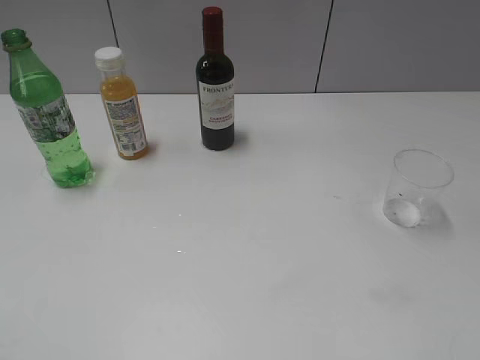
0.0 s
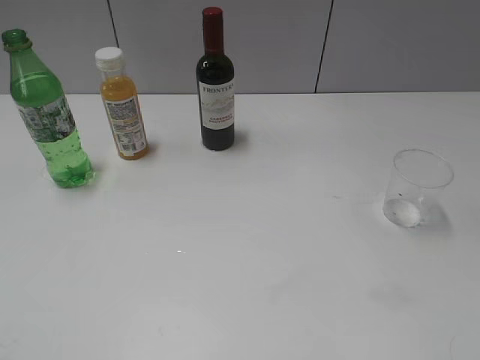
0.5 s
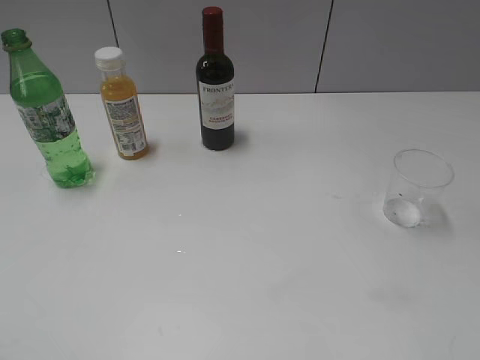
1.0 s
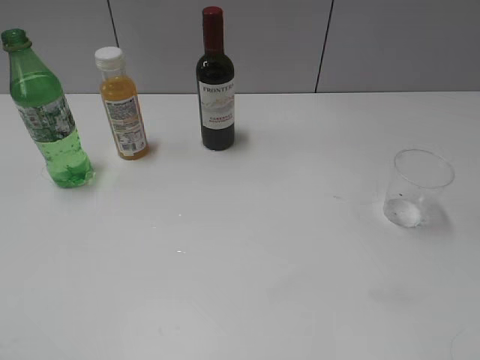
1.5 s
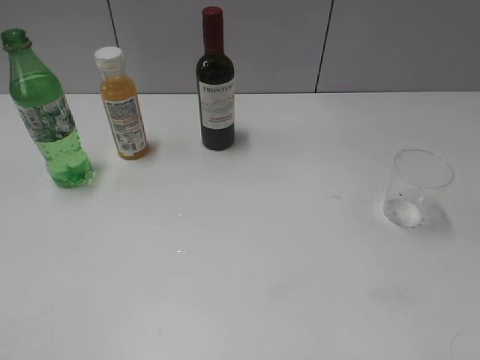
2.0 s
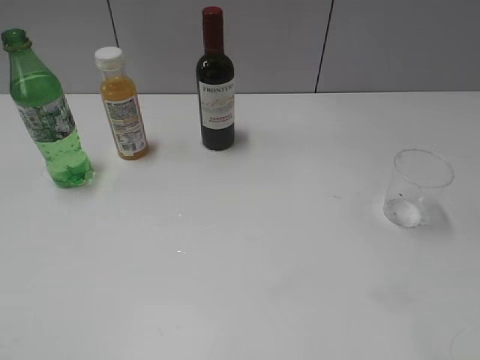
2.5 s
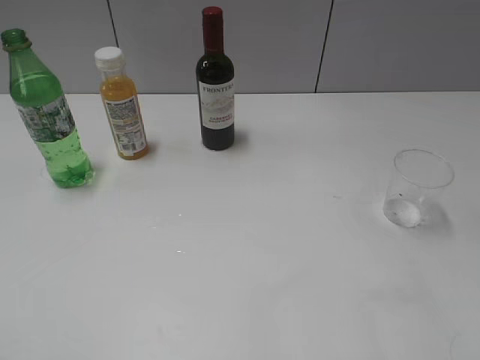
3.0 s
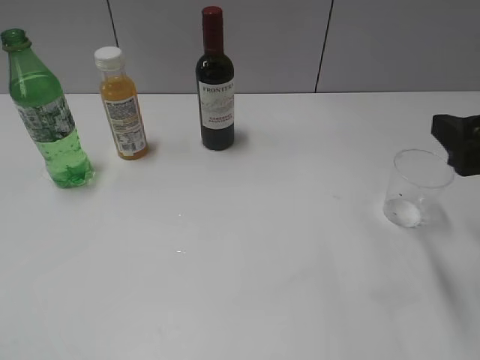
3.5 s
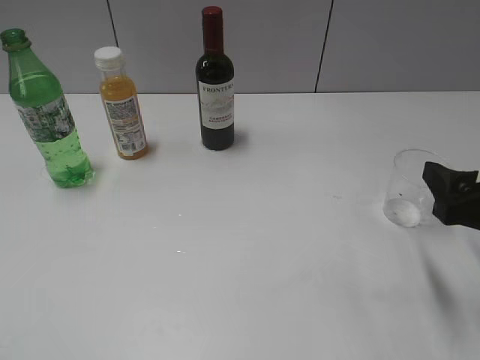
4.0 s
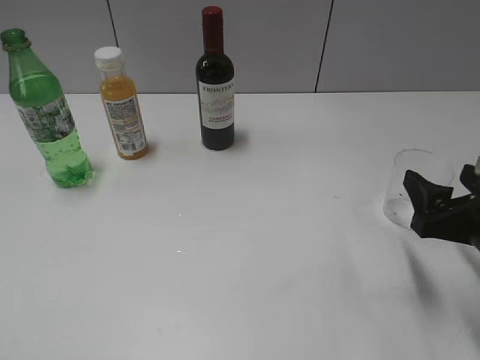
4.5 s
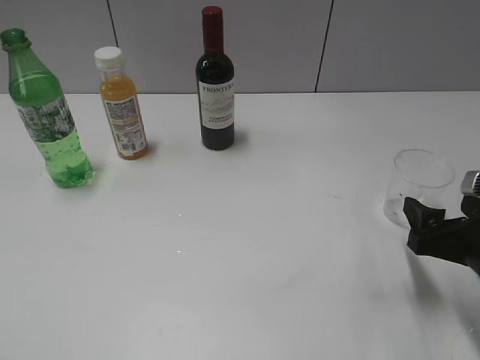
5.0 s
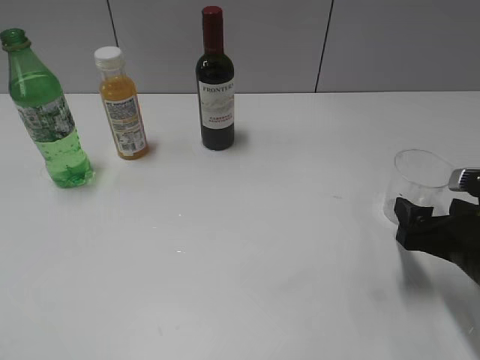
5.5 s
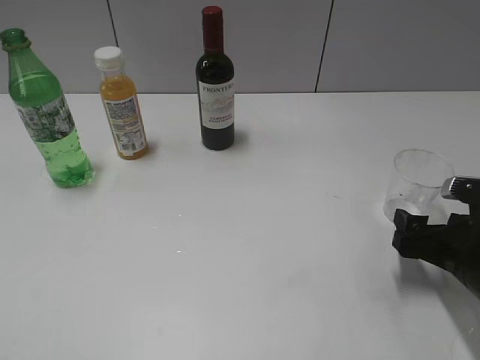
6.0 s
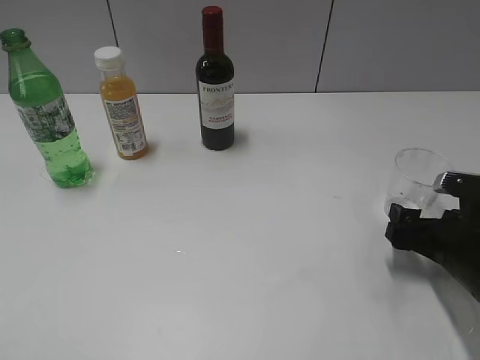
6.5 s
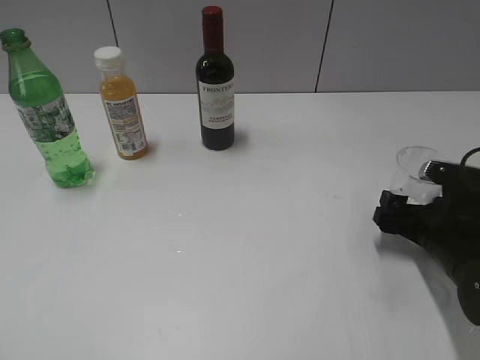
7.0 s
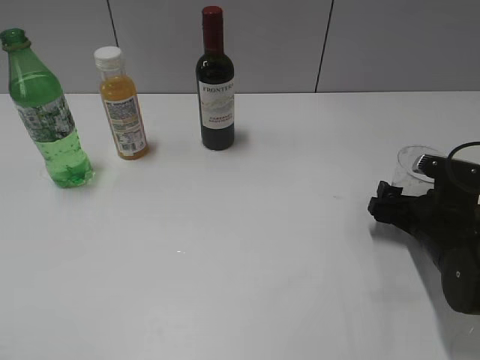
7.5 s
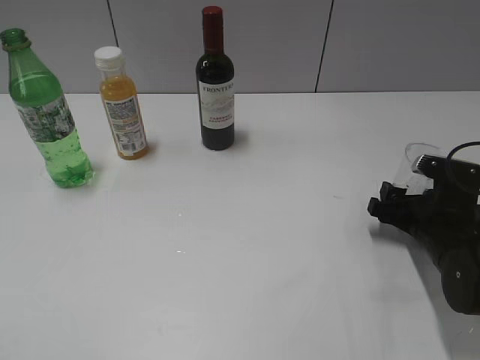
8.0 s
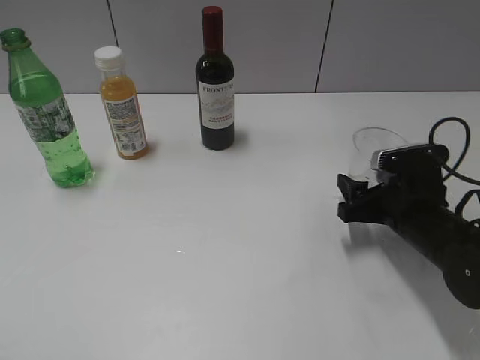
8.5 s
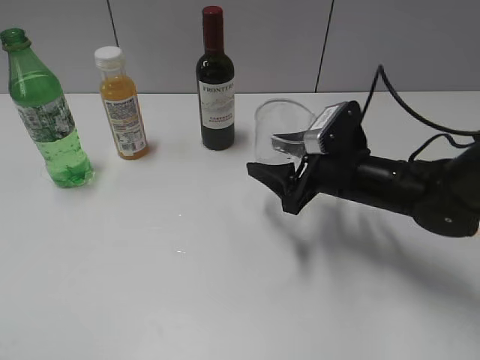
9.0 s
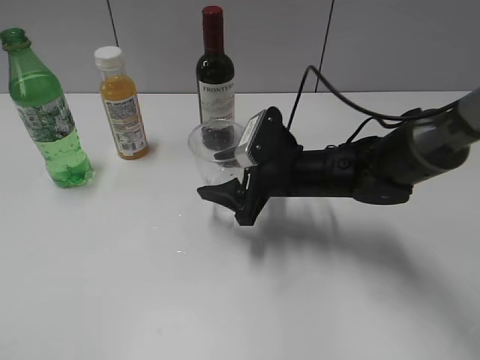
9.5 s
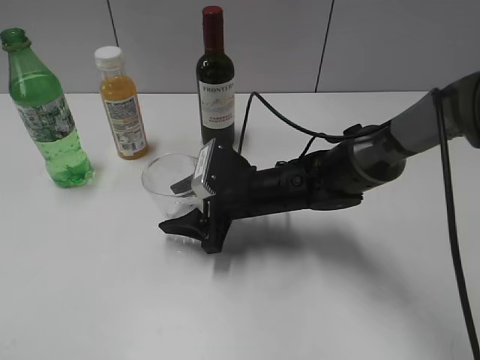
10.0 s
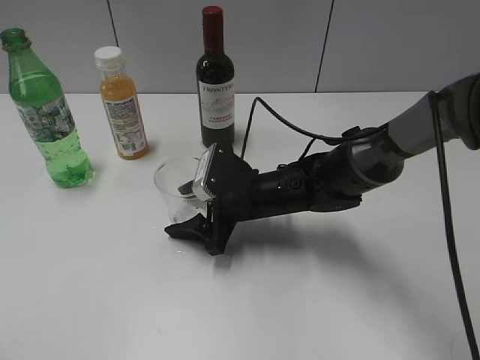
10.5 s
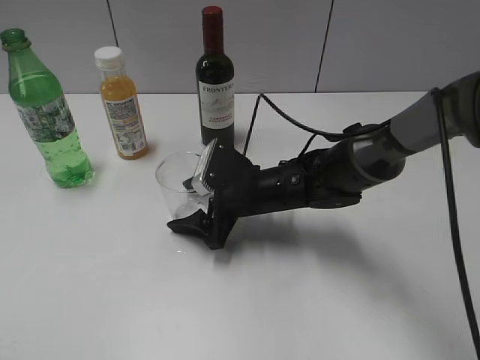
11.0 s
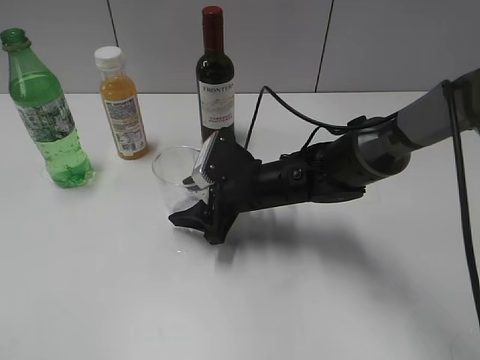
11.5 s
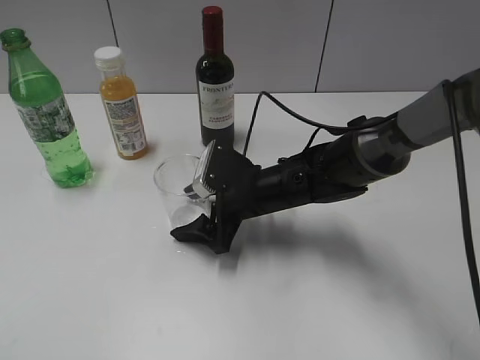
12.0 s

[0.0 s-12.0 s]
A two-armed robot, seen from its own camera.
Step, 2.0 to 8.0 s: Grasp the transparent cup with right gripper.
2.0 to 4.0 s: The right gripper travels forward and downward by some 20 cm.
4.0 to 6.0 s: The right gripper moves downward, some 10 cm.
6.0 to 8.0 s: The right gripper moves forward, approximately 5 cm, and closes its fingers.
8.0 to 10.0 s: The right gripper goes some 20 cm to the left.
10.0 to 12.0 s: The right gripper opens its fingers.

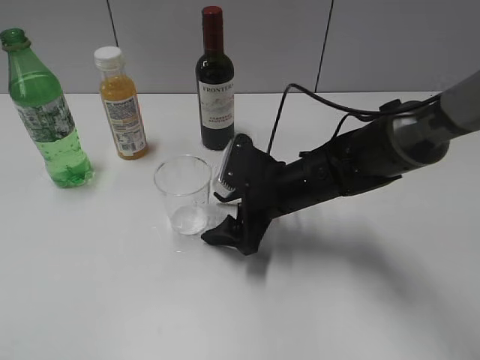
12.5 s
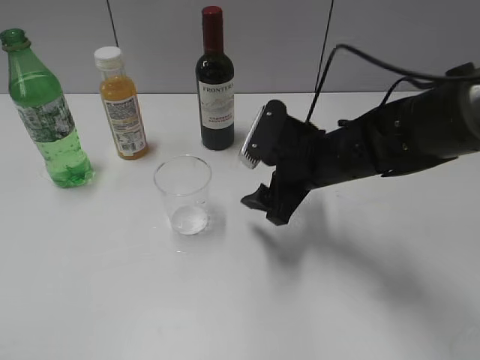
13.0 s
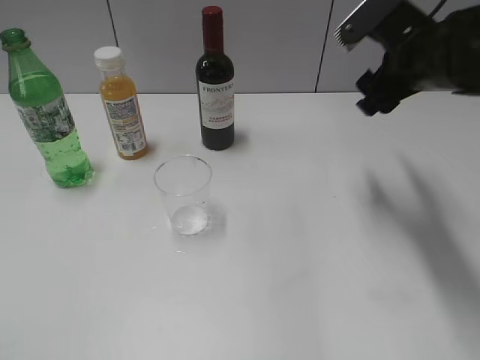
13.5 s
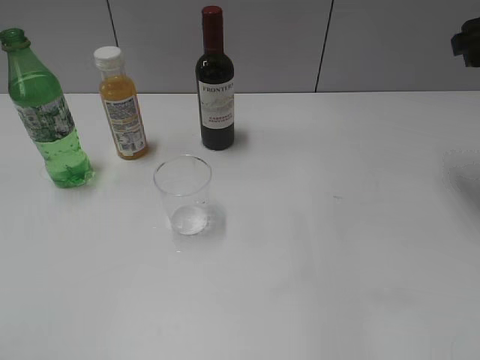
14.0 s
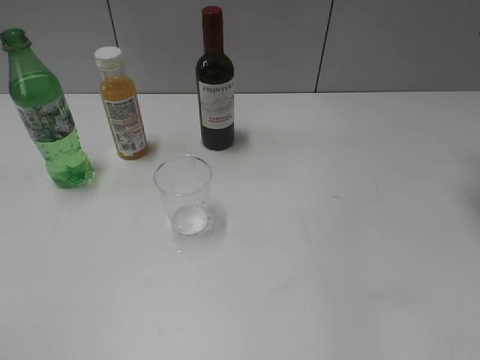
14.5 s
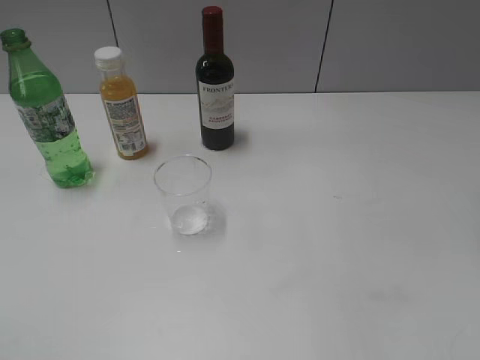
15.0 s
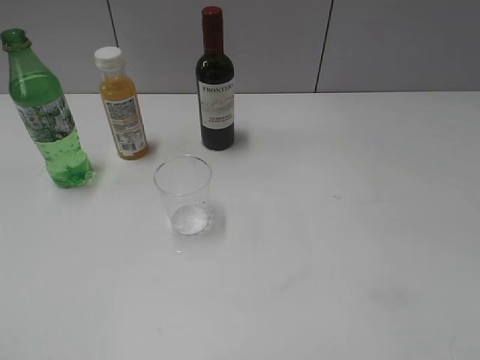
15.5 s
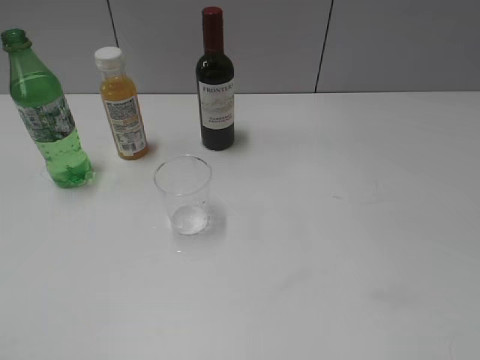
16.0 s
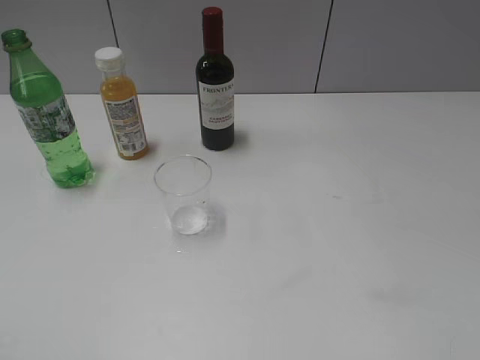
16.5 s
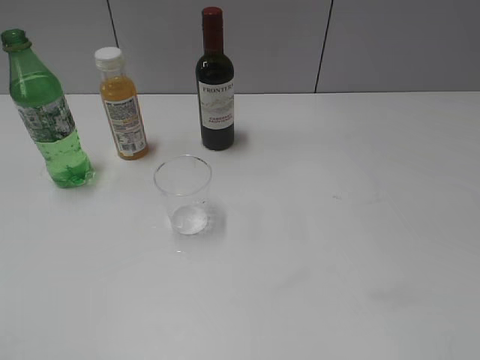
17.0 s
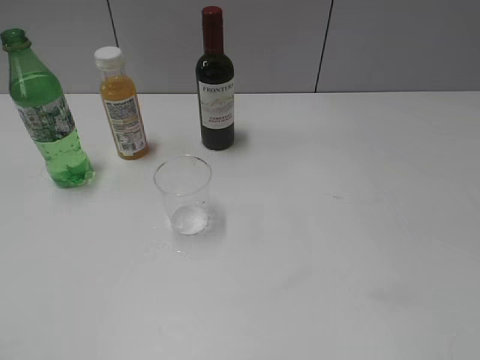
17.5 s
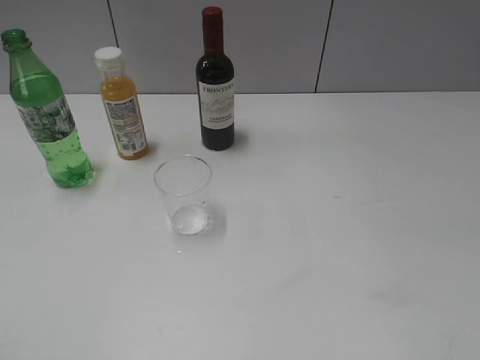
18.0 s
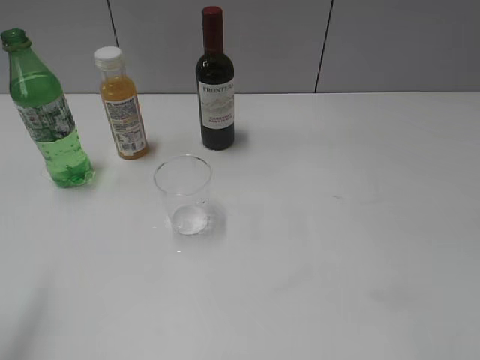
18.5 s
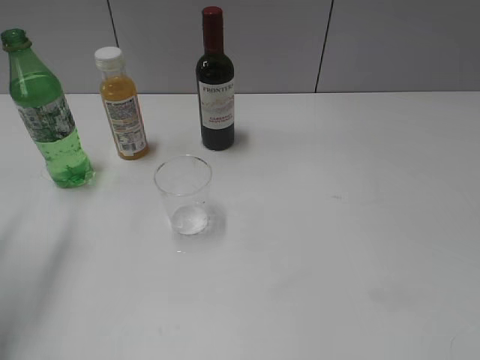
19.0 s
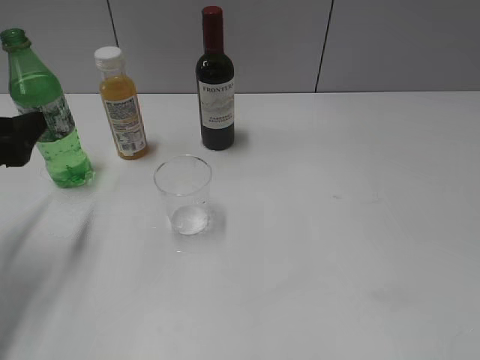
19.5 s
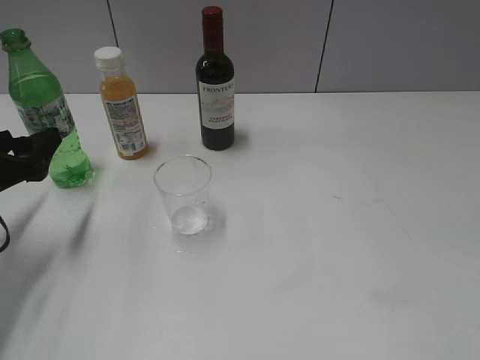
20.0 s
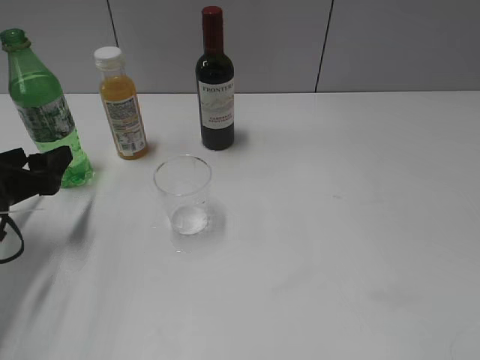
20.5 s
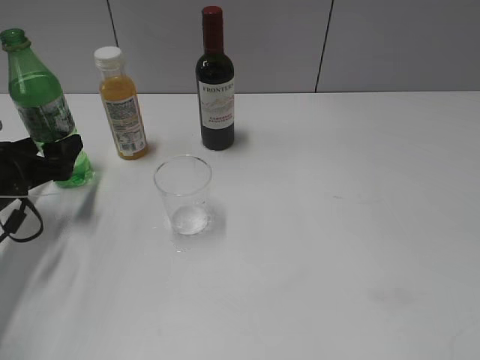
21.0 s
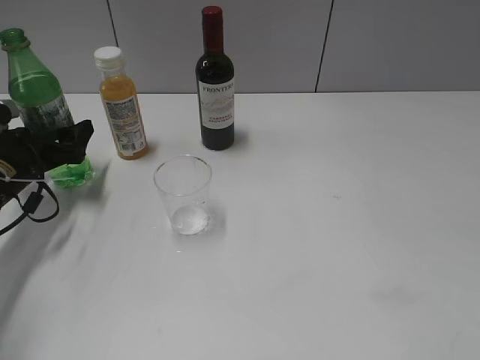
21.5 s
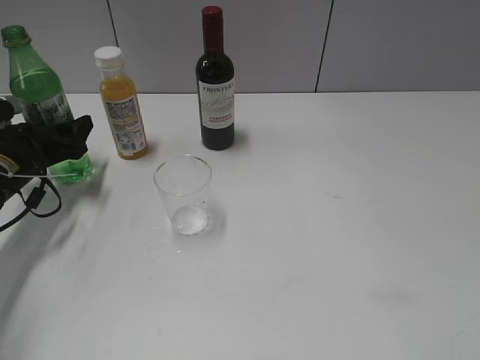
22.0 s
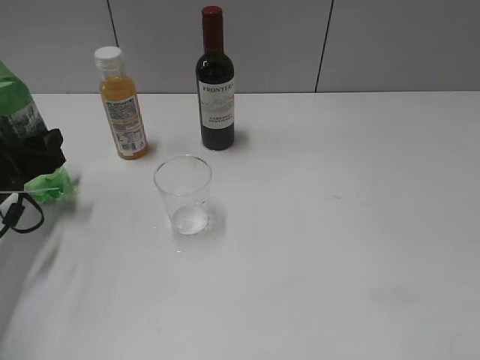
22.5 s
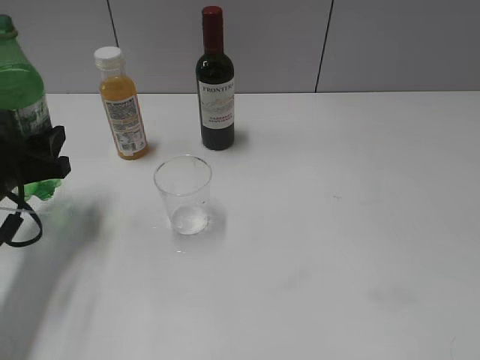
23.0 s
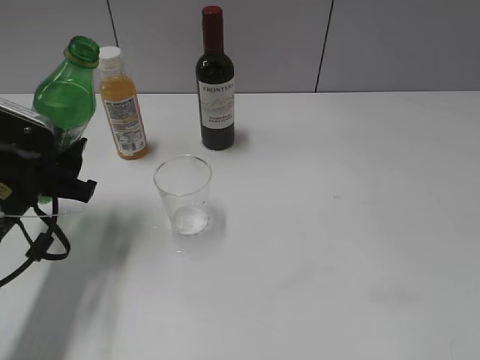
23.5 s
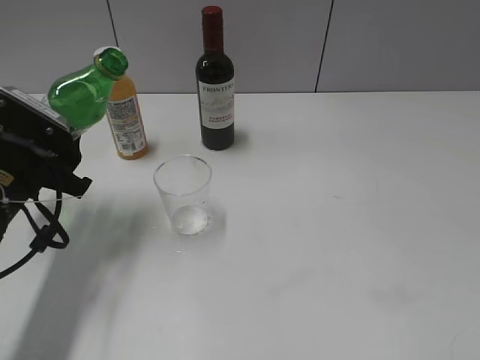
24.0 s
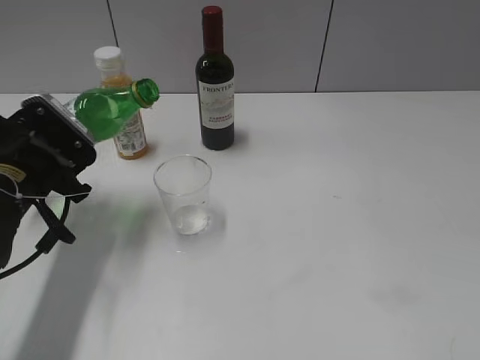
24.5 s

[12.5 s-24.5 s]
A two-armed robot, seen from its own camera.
Step, 13.0 to 22.0 s: Grasp the bottle with sprite with left gripper.
12.5 to 14.5 s: The right gripper shifts approximately 35 cm to the right and upward.
18.5 to 20.5 s: The left gripper travels downward and forward by approximately 25 cm.
20.5 to 22.5 s: The left gripper closes up.
22.5 to 24.5 s: The left gripper moves to the right, approximately 5 cm.

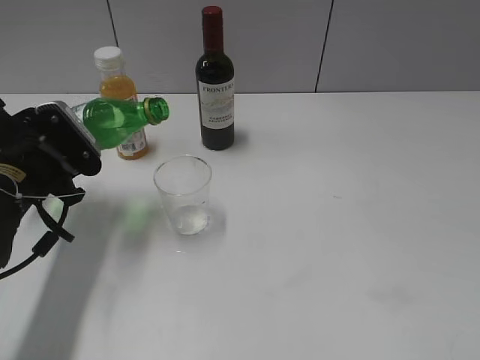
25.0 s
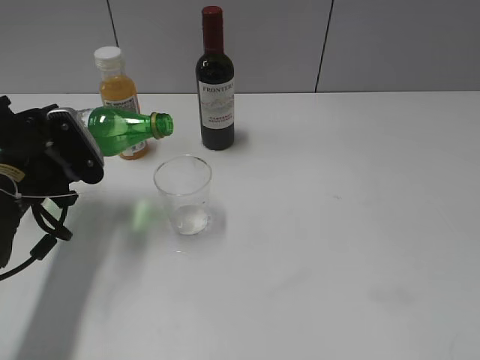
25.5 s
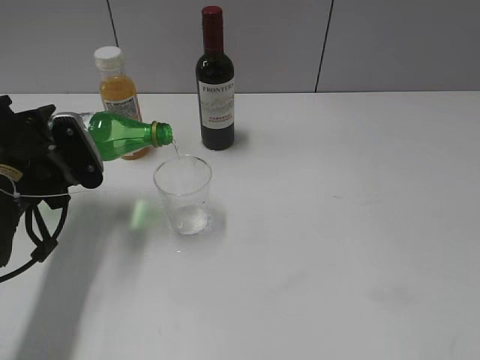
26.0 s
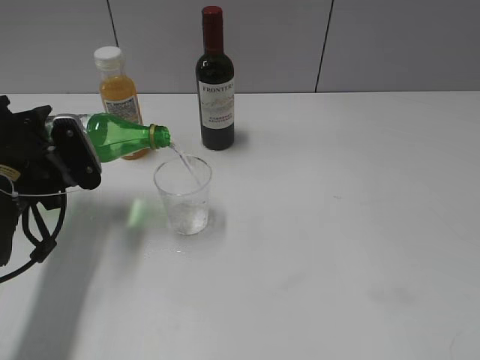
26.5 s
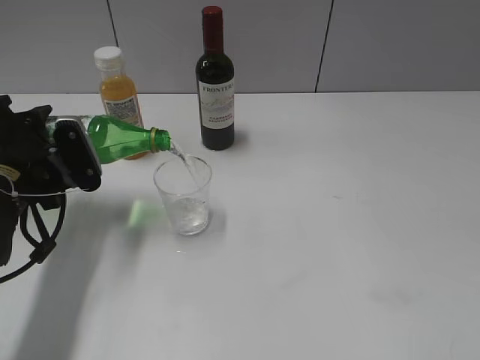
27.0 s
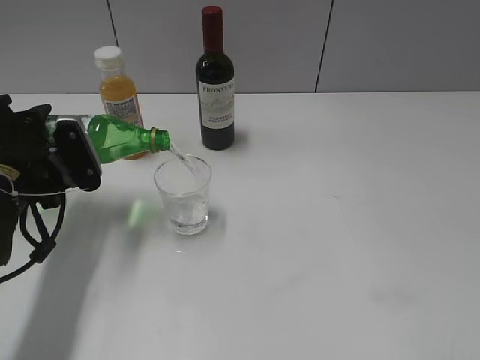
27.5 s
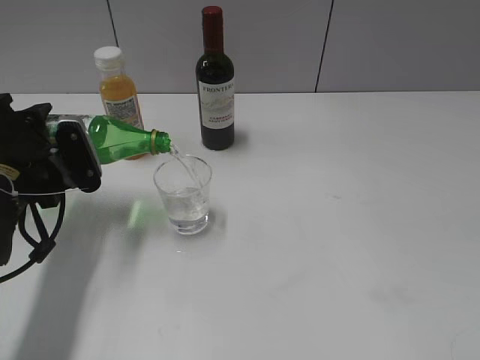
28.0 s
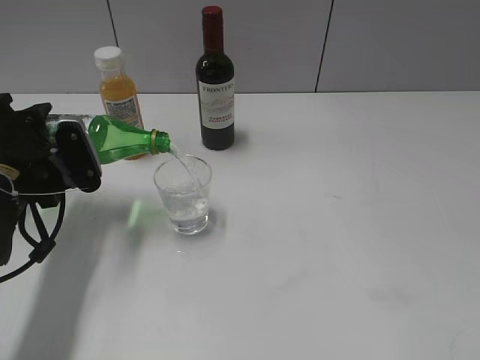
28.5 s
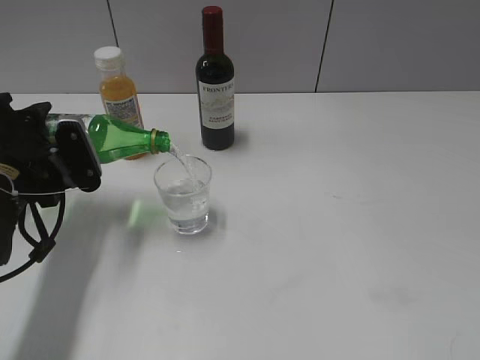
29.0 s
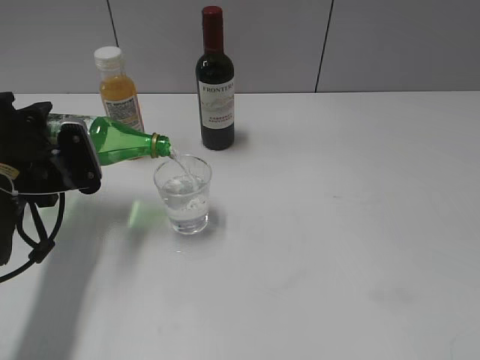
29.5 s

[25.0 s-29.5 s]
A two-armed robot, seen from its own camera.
25.0 to 27.0 s: The grippers make only small movements.
27.0 to 29.5 s: Both grippers stay put.
